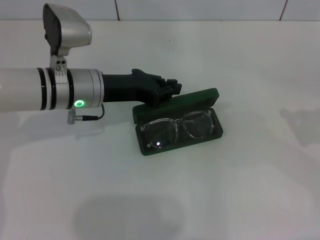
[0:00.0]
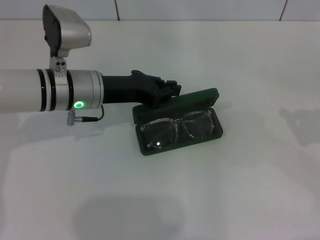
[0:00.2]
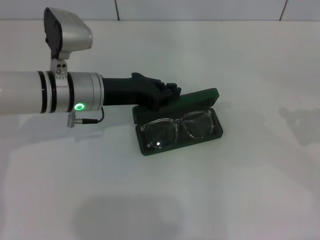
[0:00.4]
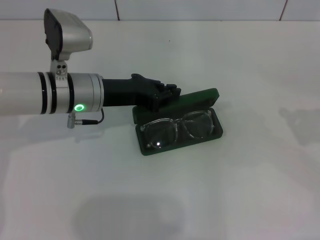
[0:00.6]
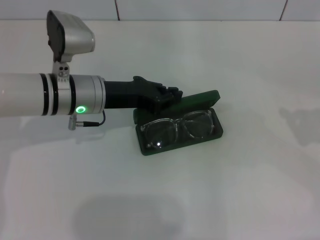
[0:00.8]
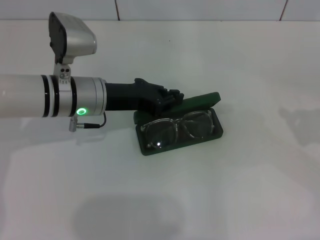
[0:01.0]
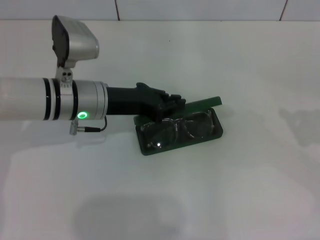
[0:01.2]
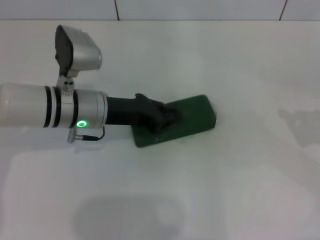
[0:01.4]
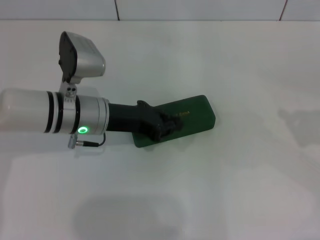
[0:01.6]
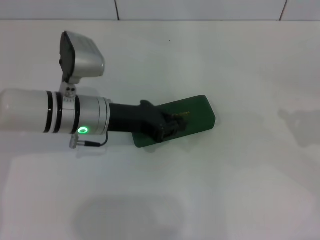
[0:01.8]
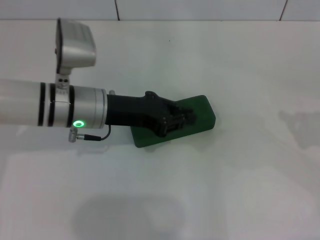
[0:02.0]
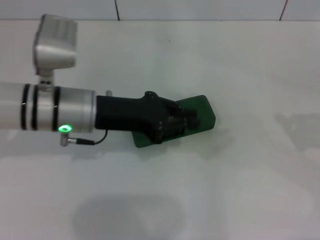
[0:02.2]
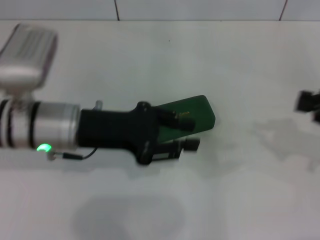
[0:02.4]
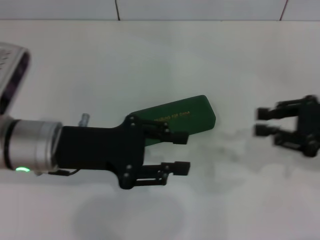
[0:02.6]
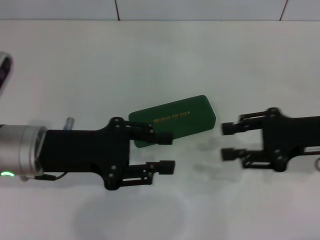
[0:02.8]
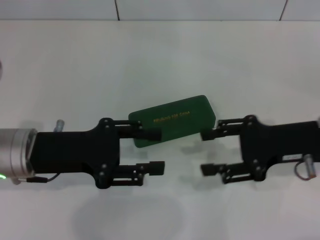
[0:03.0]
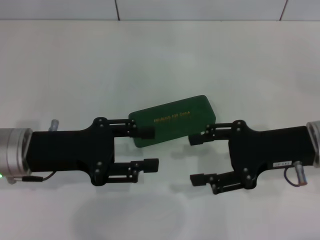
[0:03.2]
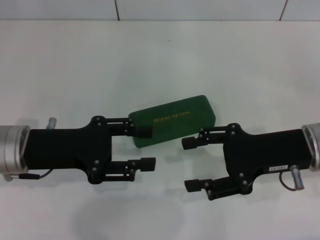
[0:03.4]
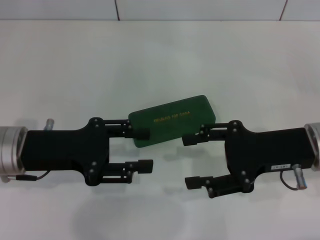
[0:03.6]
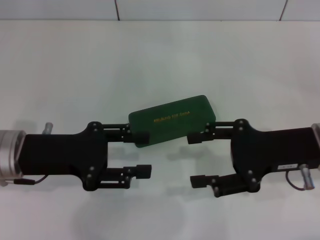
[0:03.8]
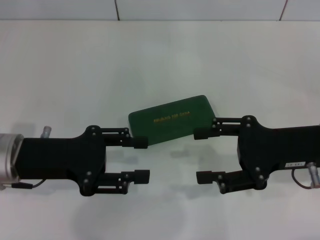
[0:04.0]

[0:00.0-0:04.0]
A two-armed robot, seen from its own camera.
0:00.0 to 0:01.4: The grippers move only a little.
0:01.4 to 0:02.6: The left gripper goes roughly 10 cm backward, and opens its fingers. The right gripper moves to the left, about 10 cm.
0:02.6 to 0:04.0: The left gripper shifts by about 5 cm; the right gripper is displaced to the left by some 10 cm, and opens its fingers.

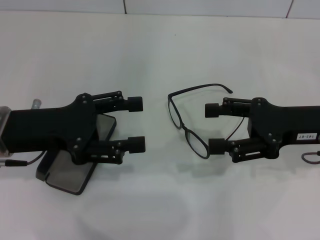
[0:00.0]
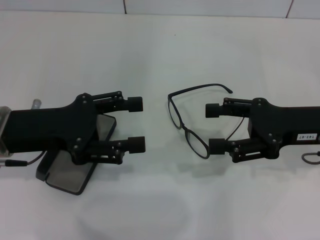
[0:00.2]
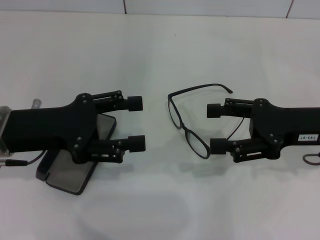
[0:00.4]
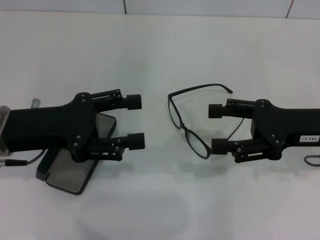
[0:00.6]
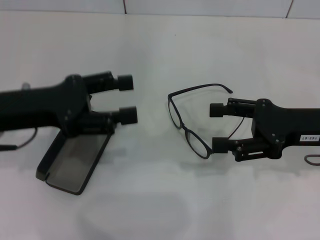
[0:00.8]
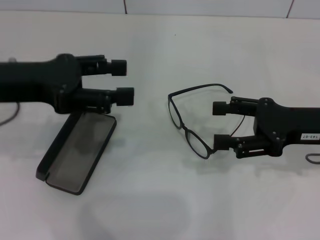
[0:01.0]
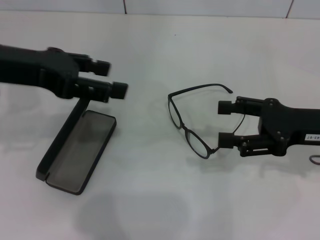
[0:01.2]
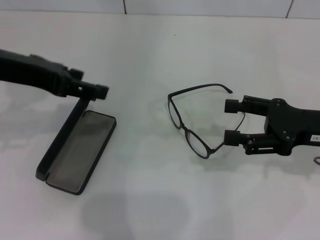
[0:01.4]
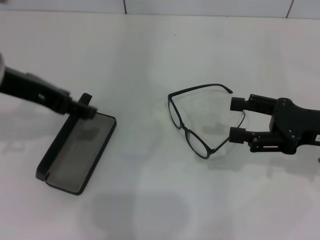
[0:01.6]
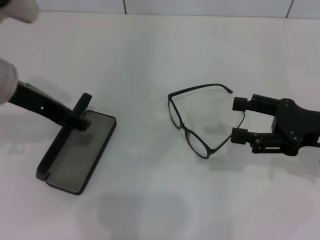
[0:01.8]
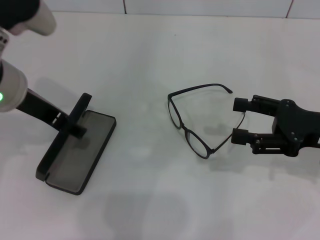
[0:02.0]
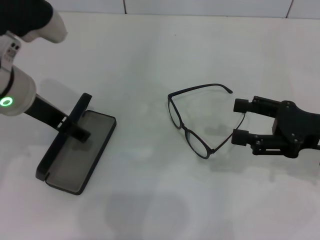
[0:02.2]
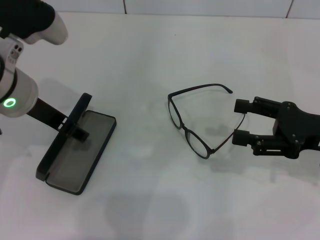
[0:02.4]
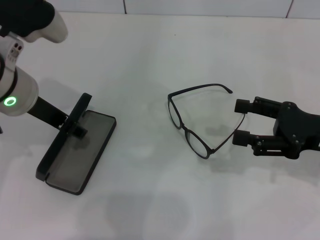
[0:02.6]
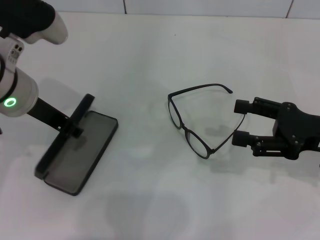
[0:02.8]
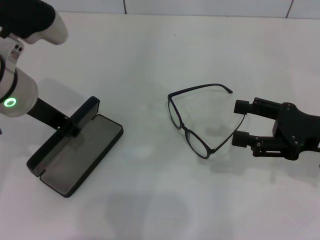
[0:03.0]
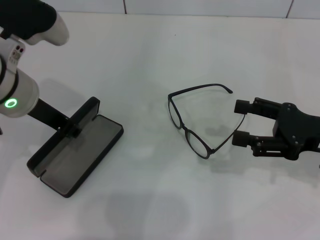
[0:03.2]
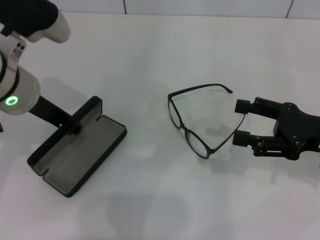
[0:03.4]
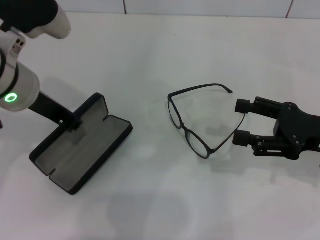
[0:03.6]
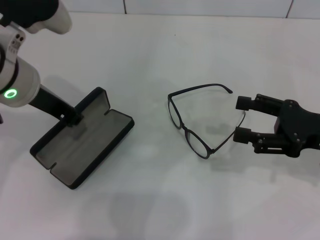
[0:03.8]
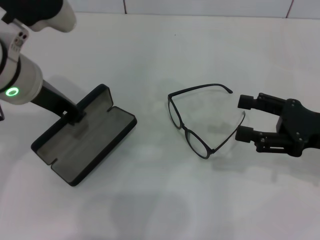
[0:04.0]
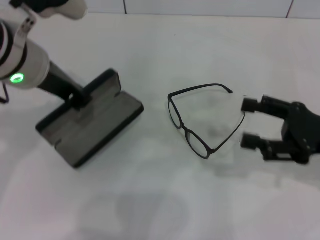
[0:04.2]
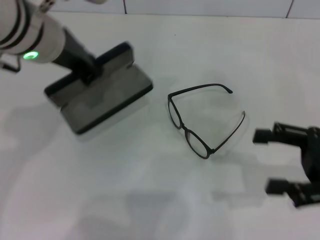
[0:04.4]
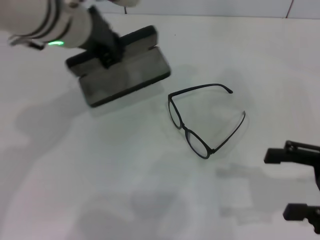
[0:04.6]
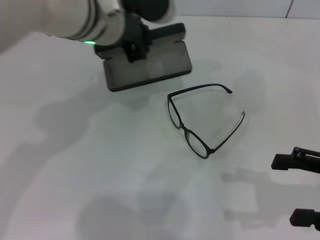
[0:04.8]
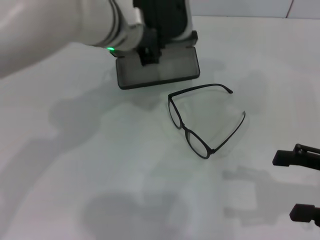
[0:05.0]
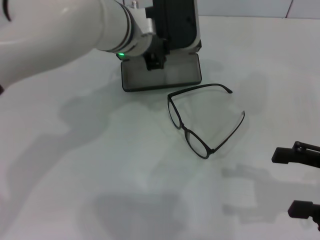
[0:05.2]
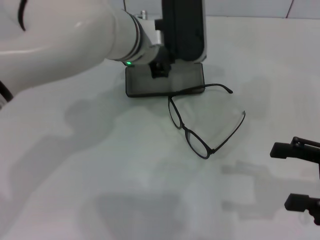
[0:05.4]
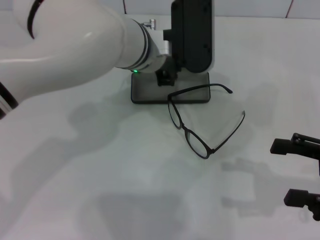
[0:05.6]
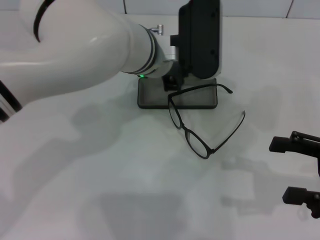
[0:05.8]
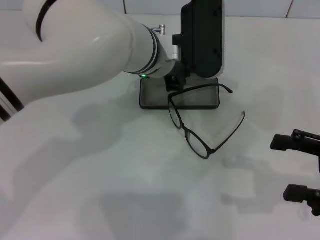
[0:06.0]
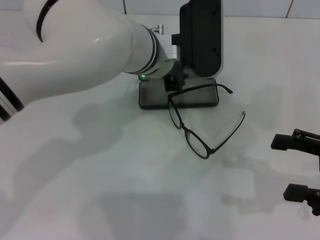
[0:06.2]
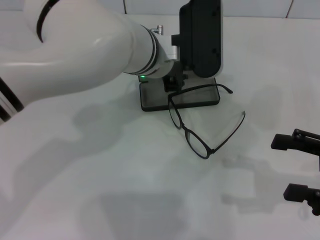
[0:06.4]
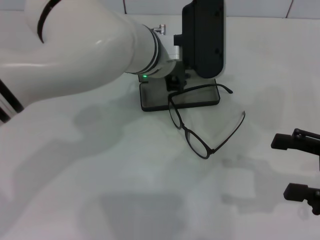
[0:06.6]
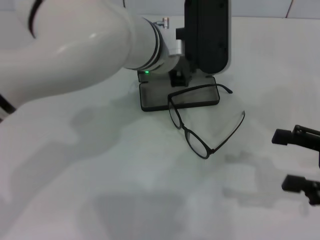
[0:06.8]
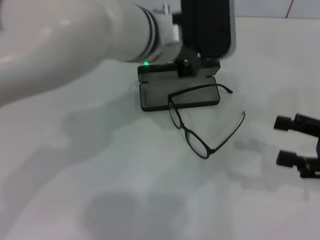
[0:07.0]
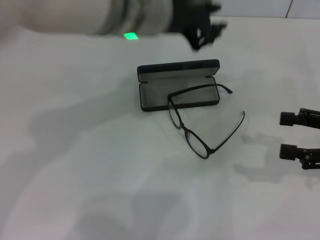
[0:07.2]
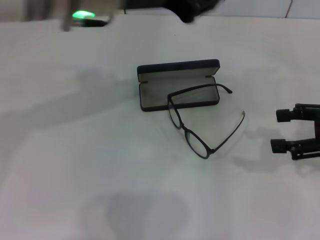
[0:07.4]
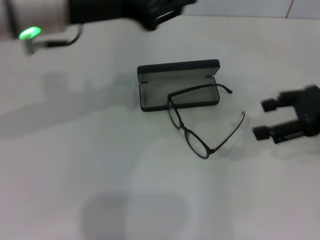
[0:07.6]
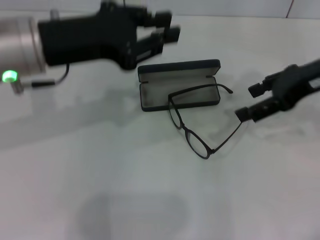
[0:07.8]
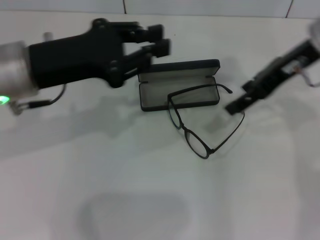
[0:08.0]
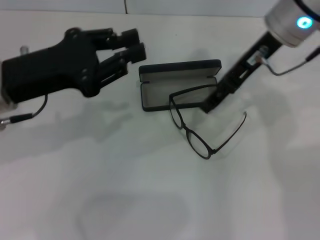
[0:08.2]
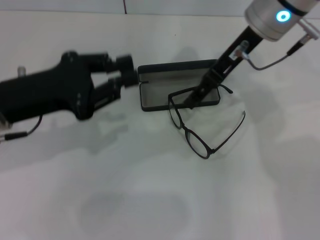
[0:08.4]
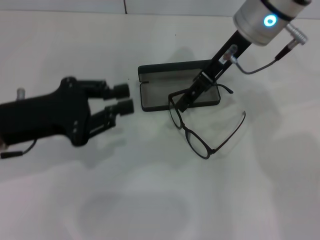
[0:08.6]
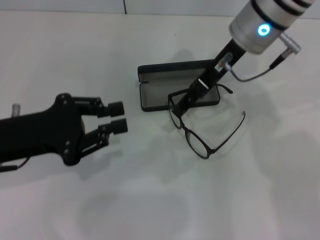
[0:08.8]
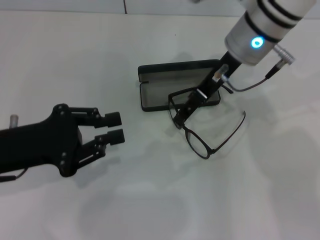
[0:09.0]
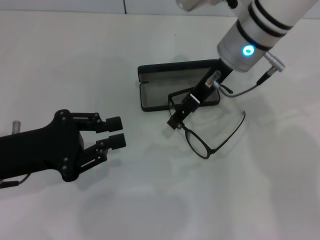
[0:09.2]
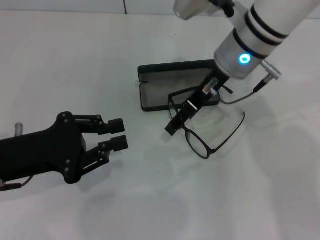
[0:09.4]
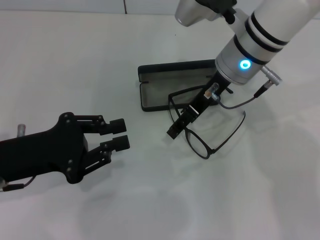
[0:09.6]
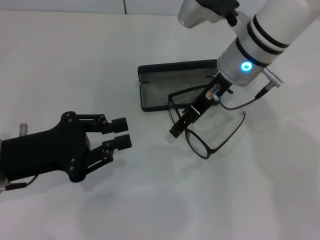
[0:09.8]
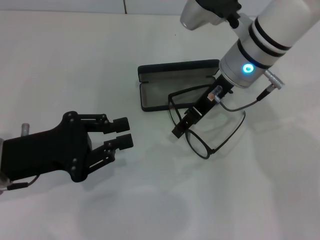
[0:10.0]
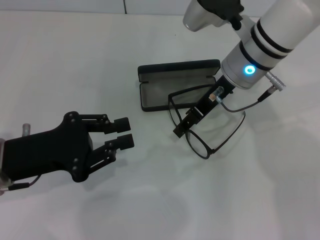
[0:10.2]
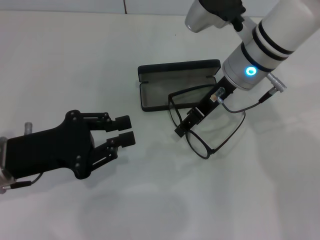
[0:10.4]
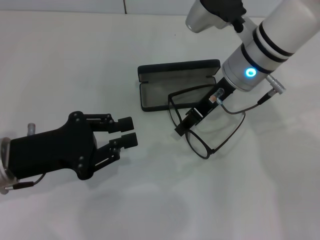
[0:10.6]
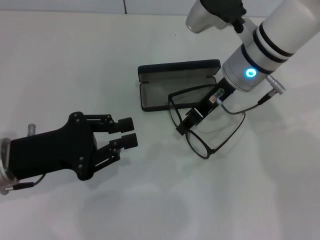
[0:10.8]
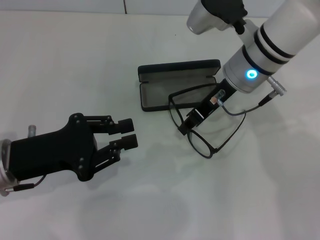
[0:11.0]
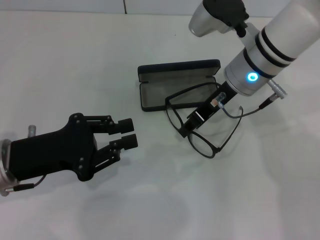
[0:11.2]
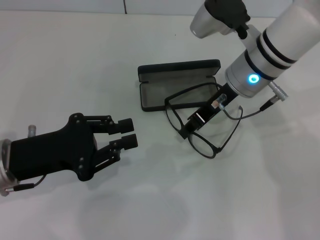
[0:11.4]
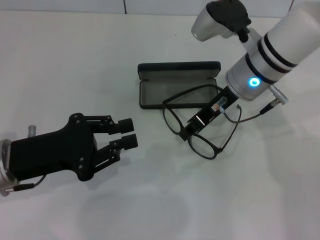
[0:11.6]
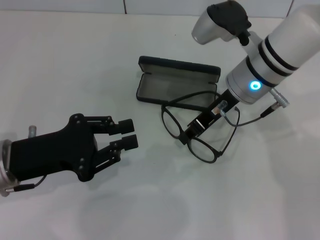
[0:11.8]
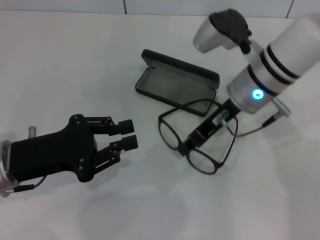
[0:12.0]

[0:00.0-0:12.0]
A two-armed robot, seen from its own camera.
Step, 0:00.0 to 0:03.0: Grab the glasses case with your left hand.
Step, 0:03.2 to 0:06.6: Place the glasses case in the center of the table with your left hand.
0:00.0 to 0:01.6: The left gripper shifts some 10 cm upward.
0:01.6 to 0:03.0: The left gripper shifts by approximately 5 cm, and closes up.
0:03.0 to 0:04.4: The left gripper moves upward, about 5 cm.
0:04.4 to 0:06.0: The left gripper is displaced to the right and downward by some 15 cm.
0:06.0 to 0:07.6: The right gripper travels upward and forward by about 10 cm. Meanwhile the left gripper is displaced to the left and upward by approximately 15 cm.
0:07.6 to 0:09.0: The left gripper is displaced downward, to the left and backward by some 20 cm. Meanwhile the right gripper shifts roughly 20 cm to the left and forward.
0:09.0 to 0:10.4: The grippers move only a little.
0:10.4 to 0:12.0: The right gripper closes.

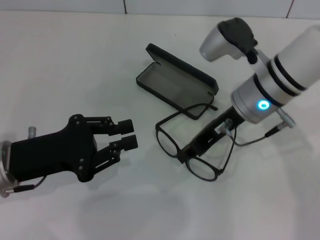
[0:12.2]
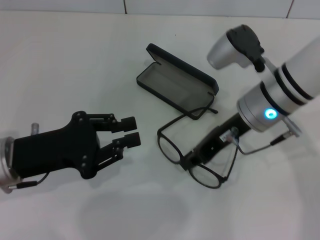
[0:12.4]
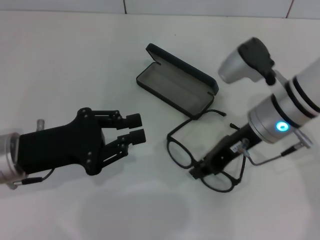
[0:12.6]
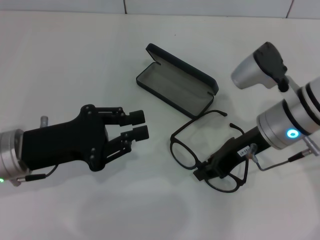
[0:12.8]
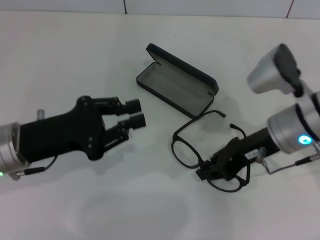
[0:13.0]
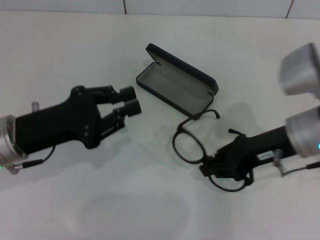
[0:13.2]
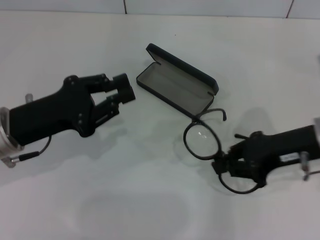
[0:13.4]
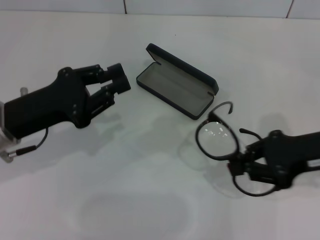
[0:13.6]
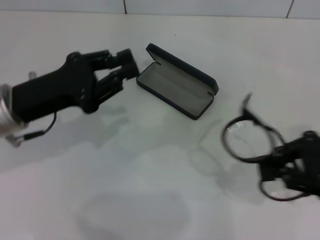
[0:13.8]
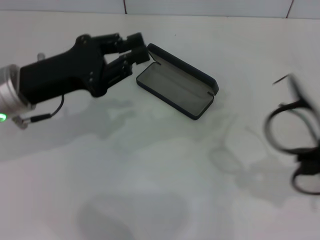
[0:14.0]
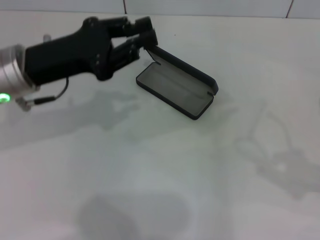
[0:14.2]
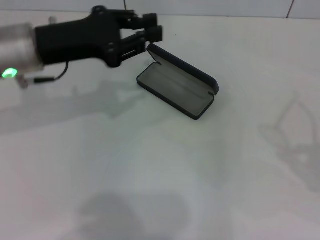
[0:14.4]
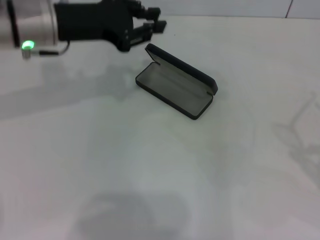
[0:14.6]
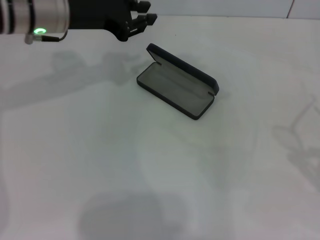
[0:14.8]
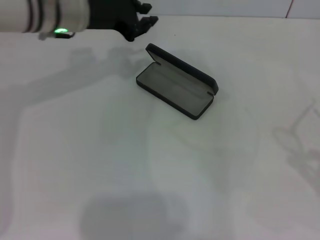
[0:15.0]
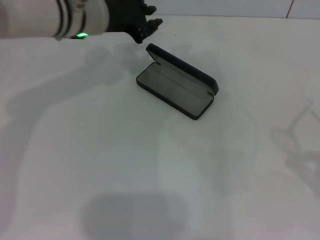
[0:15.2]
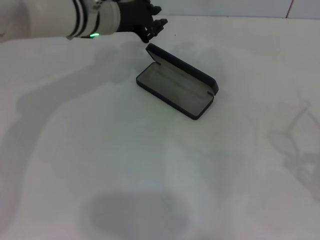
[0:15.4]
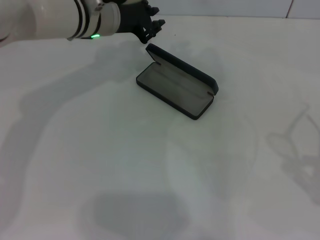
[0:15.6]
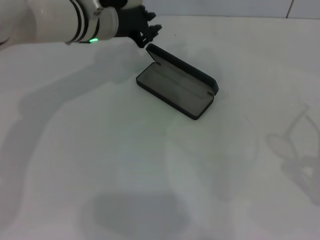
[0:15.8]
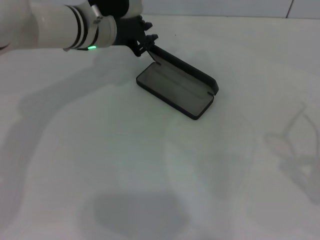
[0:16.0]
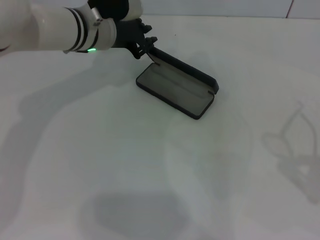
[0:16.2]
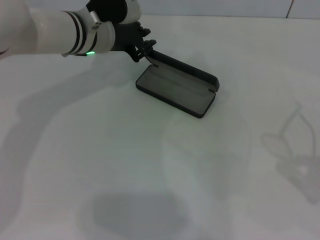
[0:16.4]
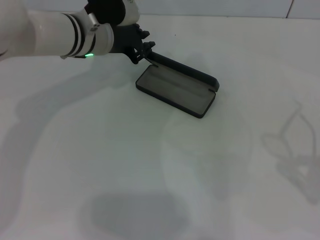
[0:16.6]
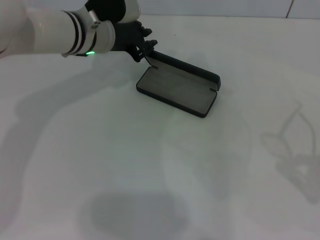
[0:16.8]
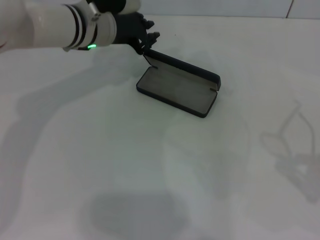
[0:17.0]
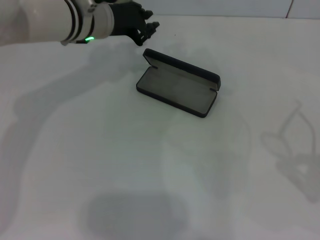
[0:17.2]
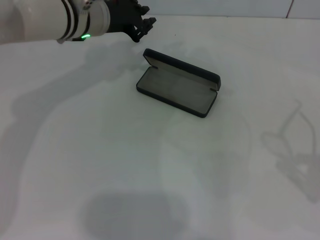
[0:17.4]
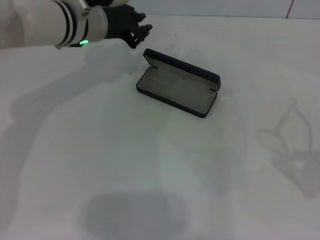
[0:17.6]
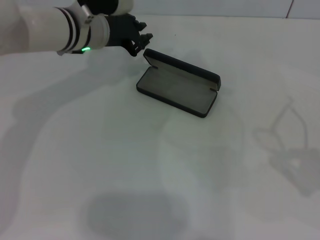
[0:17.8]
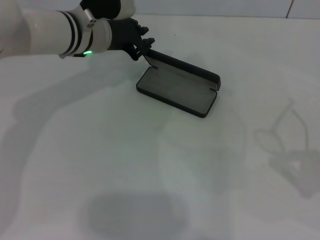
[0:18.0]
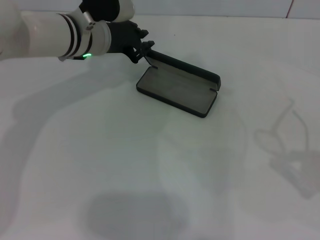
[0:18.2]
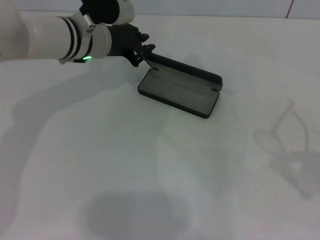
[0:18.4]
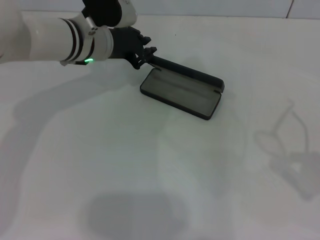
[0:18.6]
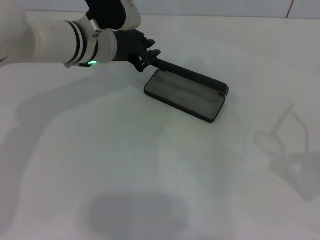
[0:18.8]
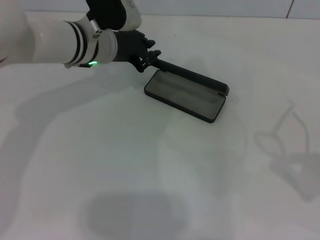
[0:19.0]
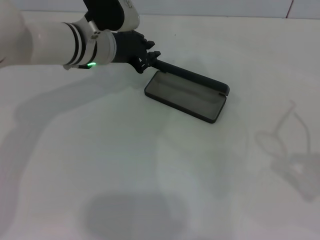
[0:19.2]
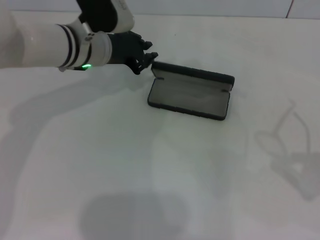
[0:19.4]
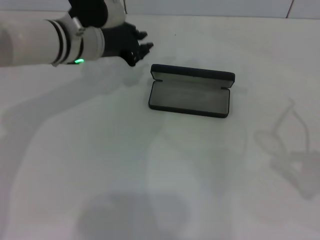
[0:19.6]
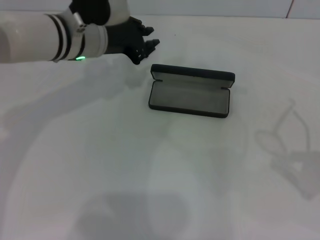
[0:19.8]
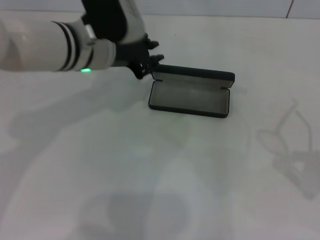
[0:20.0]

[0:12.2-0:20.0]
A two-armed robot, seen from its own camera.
0:12.2 to 0:13.8: The left gripper ends up approximately 5 cm from where it was. Meanwhile the right gripper travels to the right and backward by some 20 cm.
0:13.8 to 0:15.4: The left gripper travels forward and to the right by approximately 20 cm. The right gripper is displaced to the right and backward by roughly 15 cm.
0:15.4 to 0:18.4: The grippers make only small movements.
0:18.4 to 0:20.0: The left gripper goes approximately 5 cm backward.
